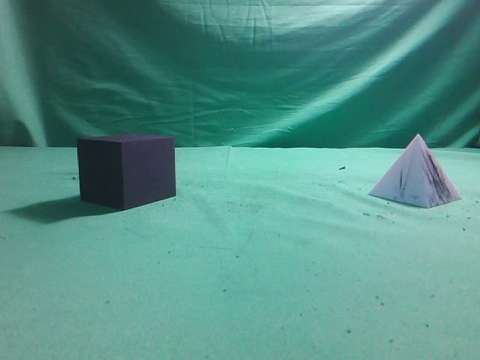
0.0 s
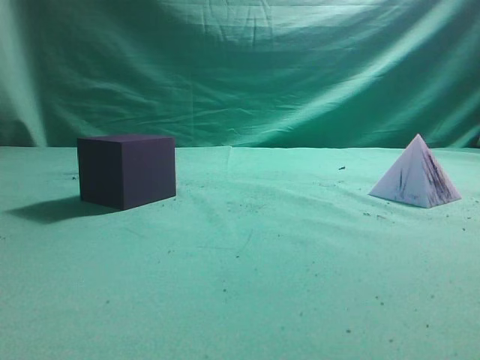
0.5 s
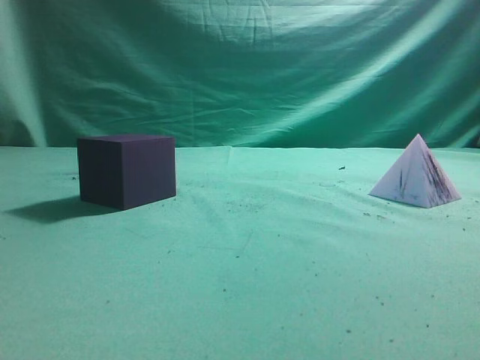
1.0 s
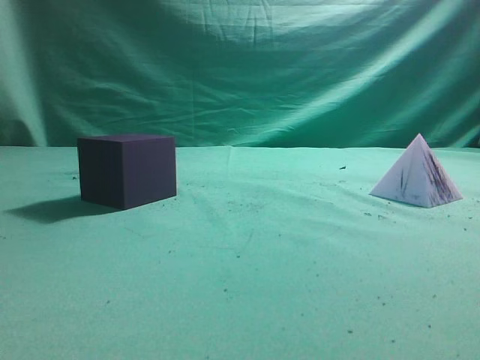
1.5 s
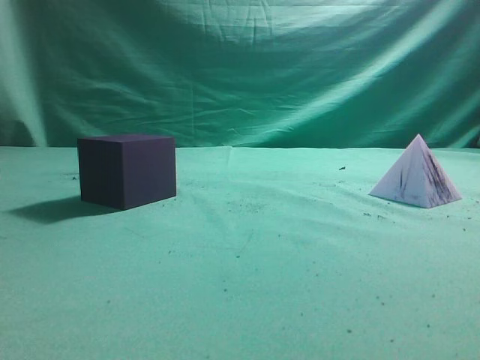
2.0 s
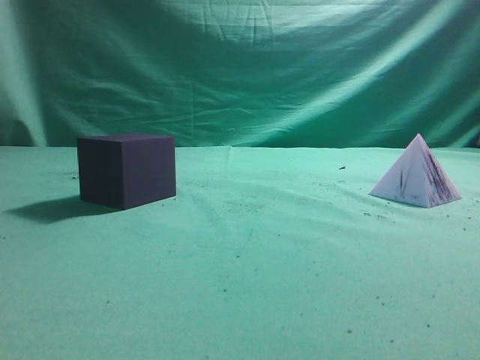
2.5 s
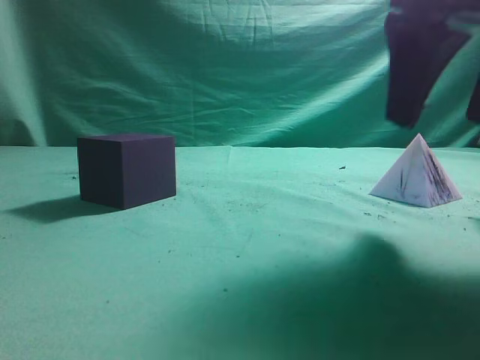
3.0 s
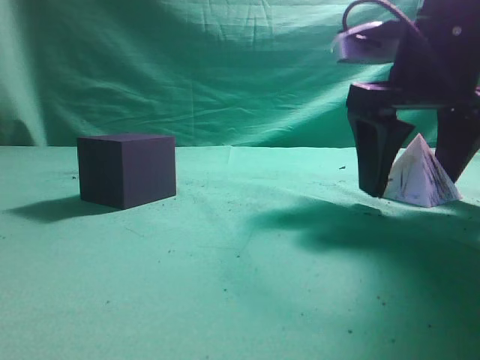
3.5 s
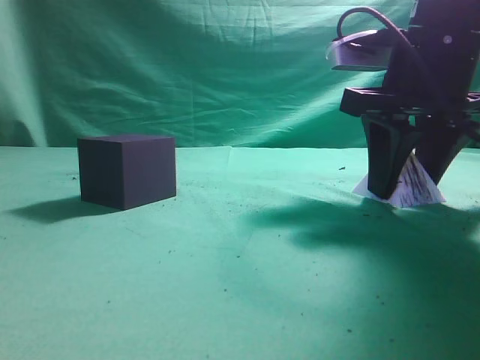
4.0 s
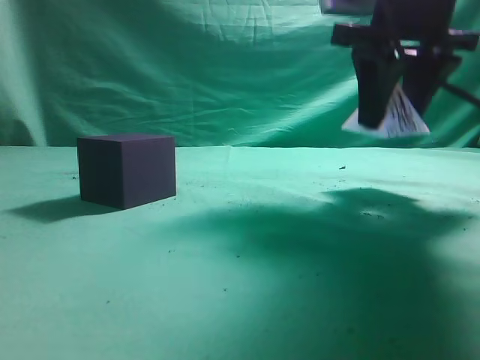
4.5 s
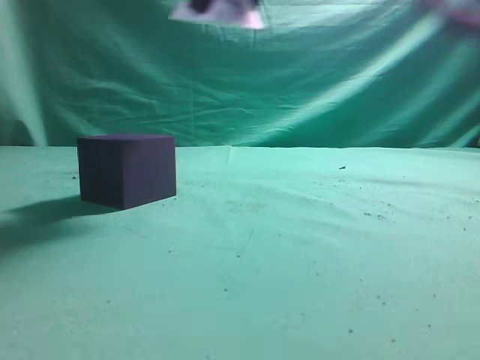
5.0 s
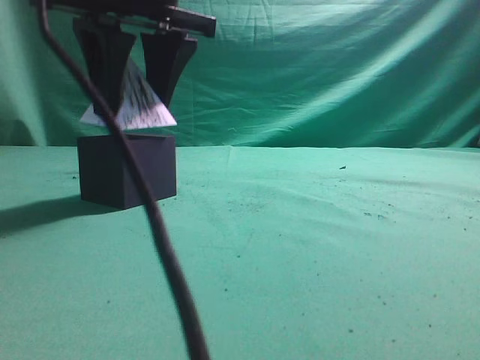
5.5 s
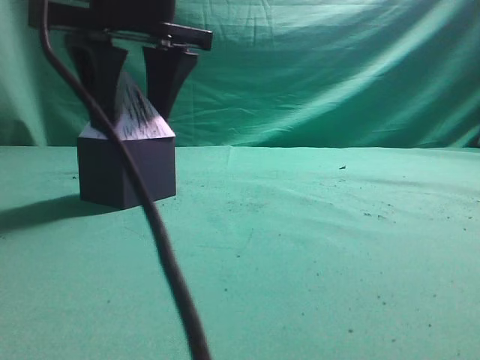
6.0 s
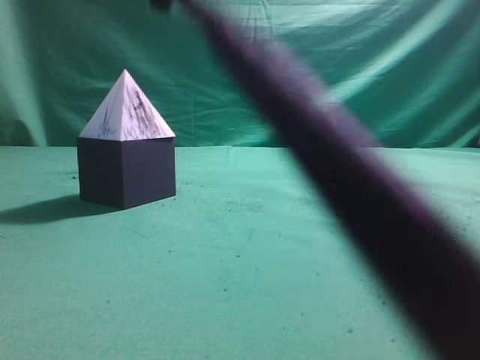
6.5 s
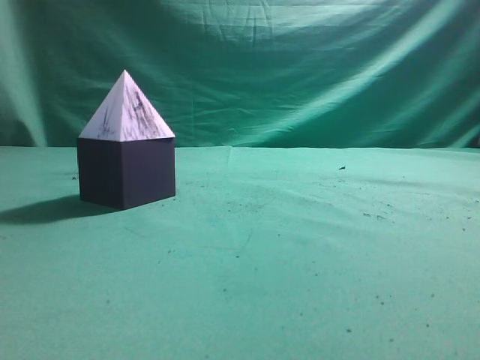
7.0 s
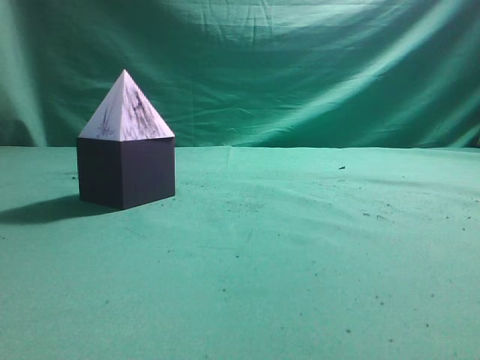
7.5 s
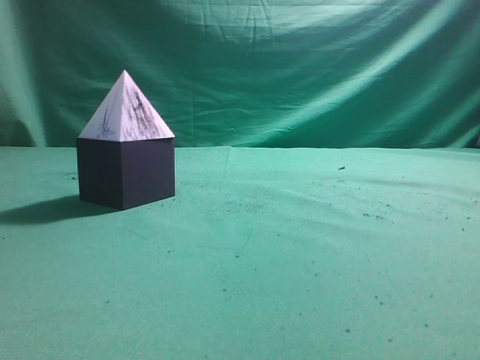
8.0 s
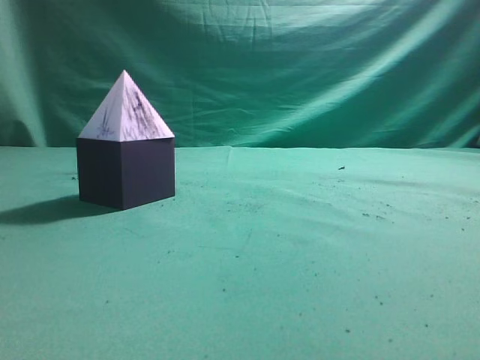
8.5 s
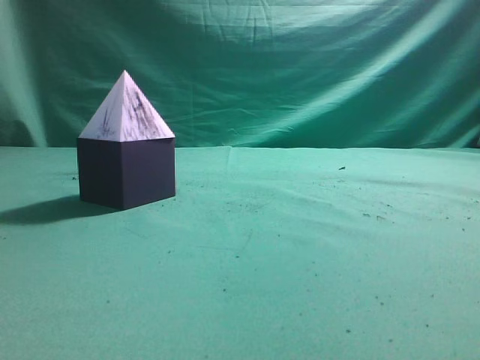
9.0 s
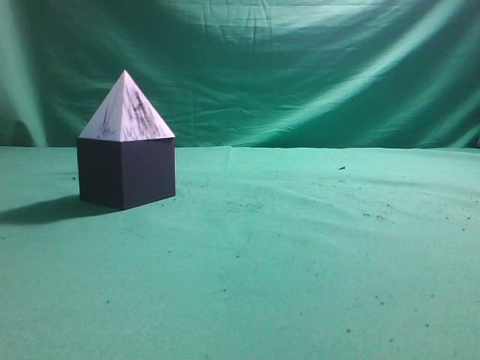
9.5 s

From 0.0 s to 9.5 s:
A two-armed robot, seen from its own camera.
Task of the whole recording: pick up the square pyramid from the table and place it on the cube block.
Step, from 0.0 s to 4.5 s: Grasp the triangular block.
Step, from 5.0 s to 6.0 s: Place the block onto the cube-shaped block.
From 2.0 s to 4.0 s: The right gripper heads forward, downward and to the left, covering about 30 cm, and opens up.
From 4.0 s to 5.5 s: The right gripper shifts approximately 25 cm to the left.
From 5.5 s to 7.5 s: The right gripper goes approximately 30 cm to the right, backward and upward, and closes its fingers.
